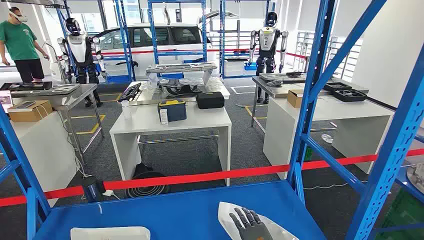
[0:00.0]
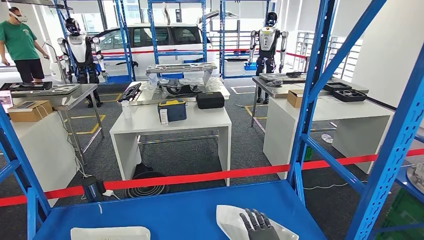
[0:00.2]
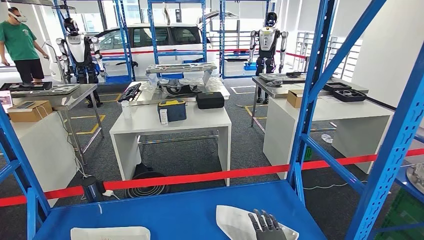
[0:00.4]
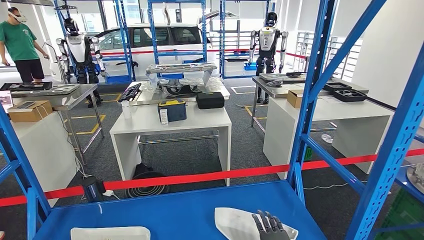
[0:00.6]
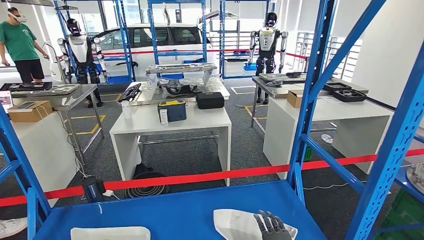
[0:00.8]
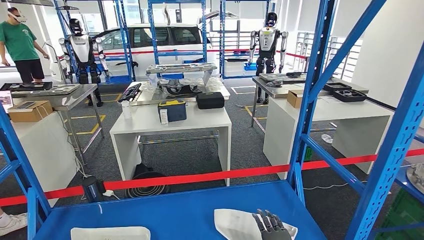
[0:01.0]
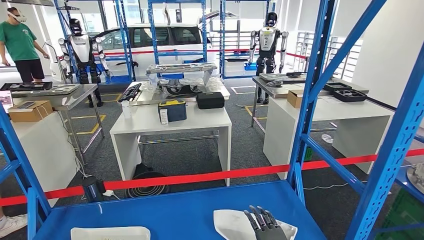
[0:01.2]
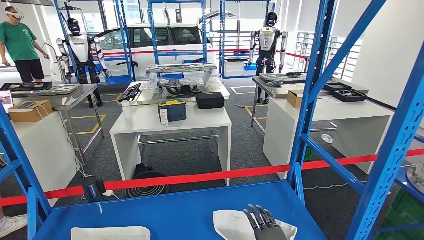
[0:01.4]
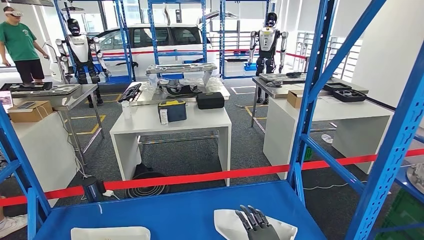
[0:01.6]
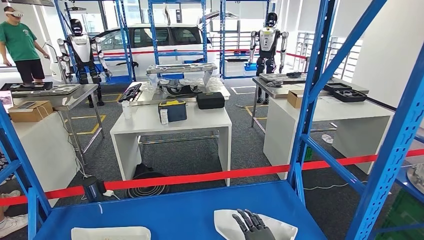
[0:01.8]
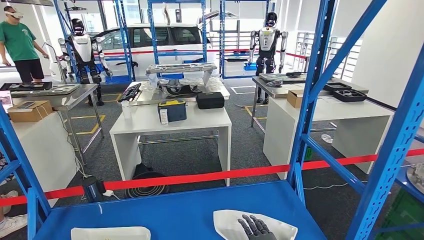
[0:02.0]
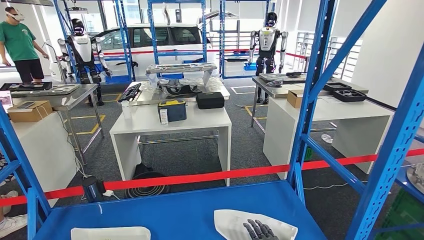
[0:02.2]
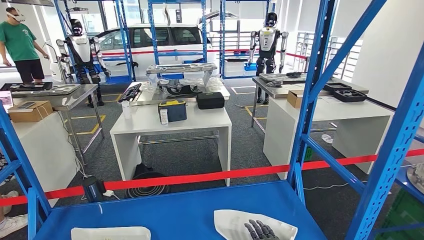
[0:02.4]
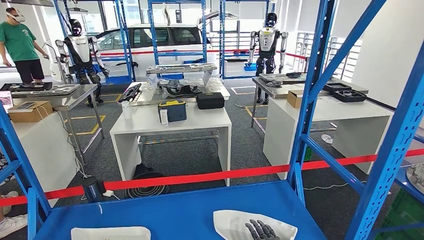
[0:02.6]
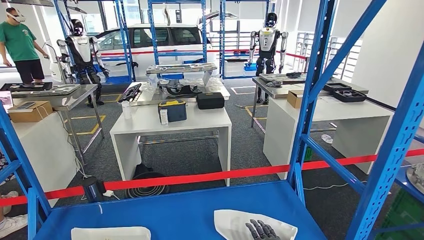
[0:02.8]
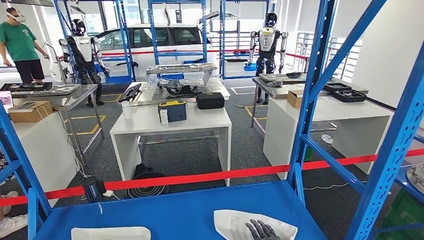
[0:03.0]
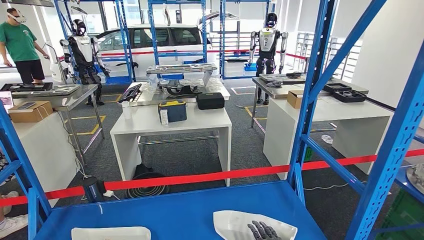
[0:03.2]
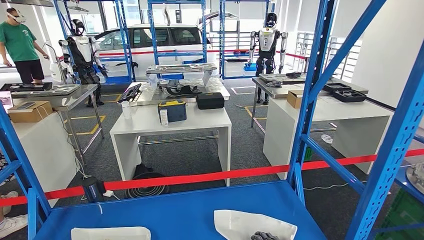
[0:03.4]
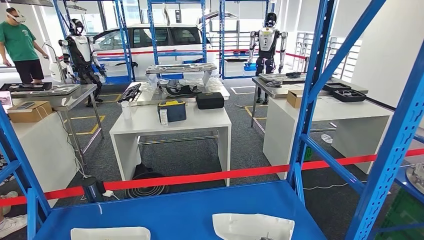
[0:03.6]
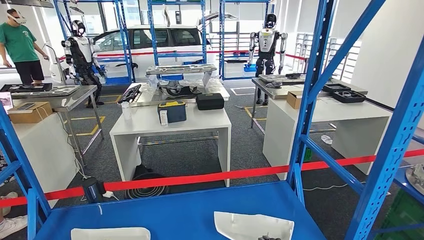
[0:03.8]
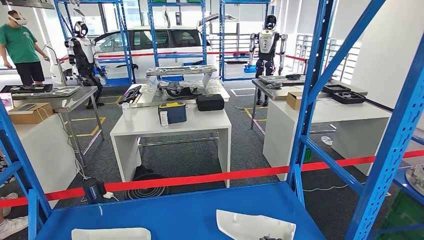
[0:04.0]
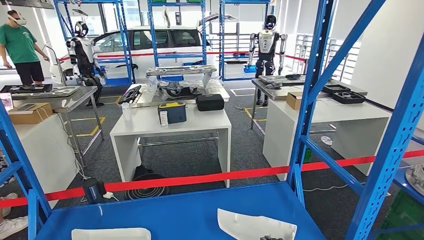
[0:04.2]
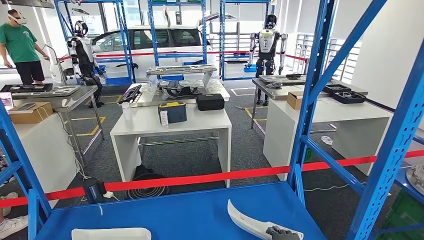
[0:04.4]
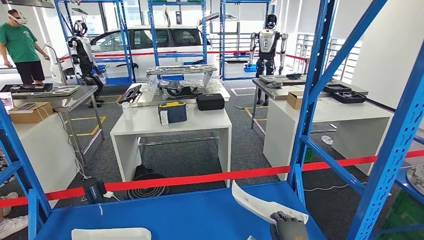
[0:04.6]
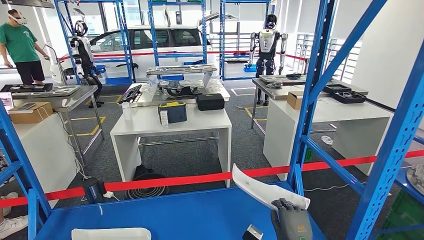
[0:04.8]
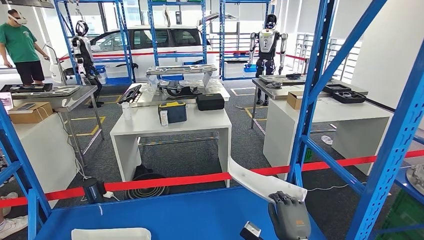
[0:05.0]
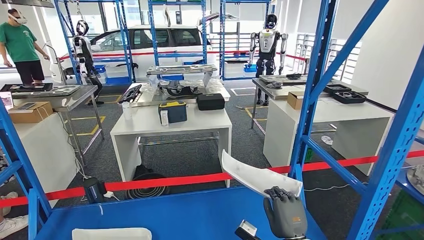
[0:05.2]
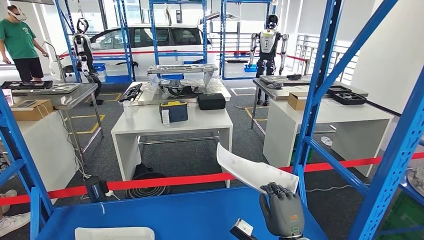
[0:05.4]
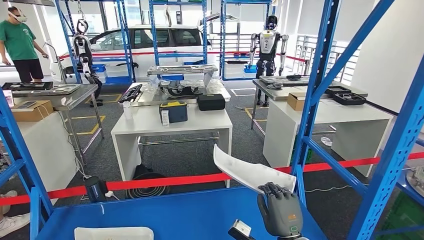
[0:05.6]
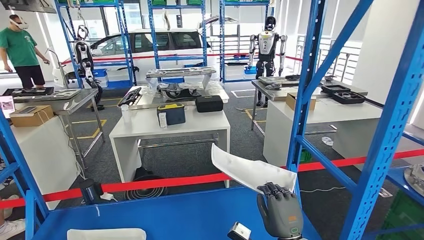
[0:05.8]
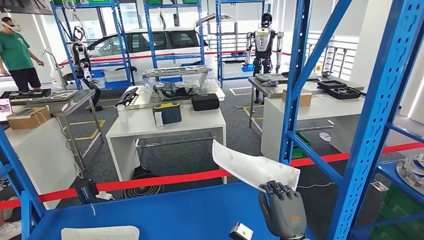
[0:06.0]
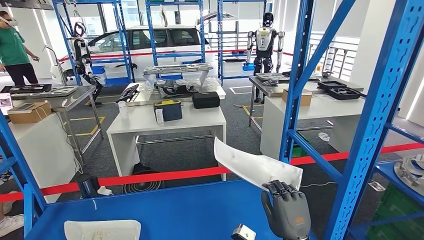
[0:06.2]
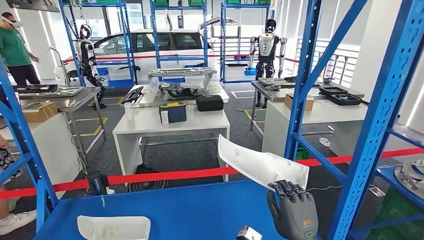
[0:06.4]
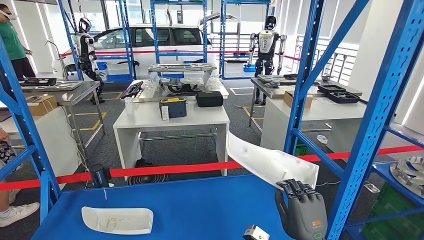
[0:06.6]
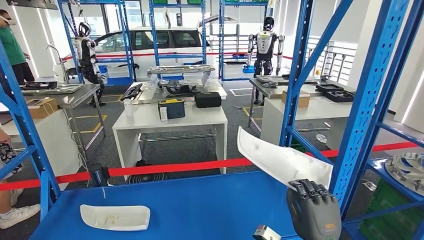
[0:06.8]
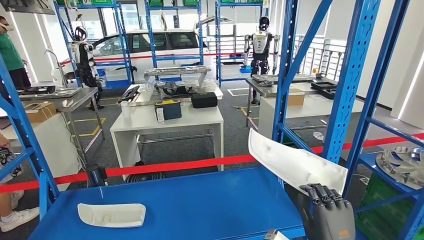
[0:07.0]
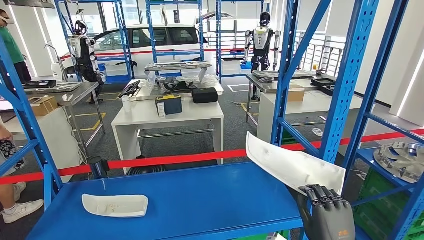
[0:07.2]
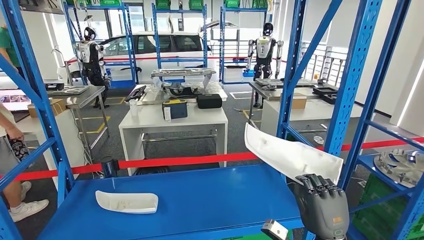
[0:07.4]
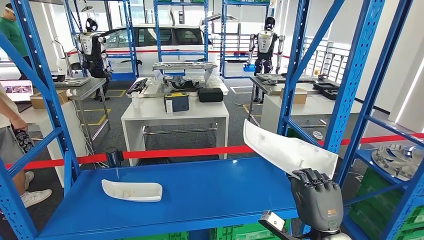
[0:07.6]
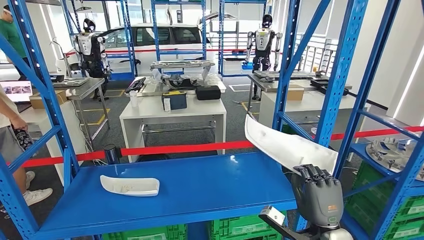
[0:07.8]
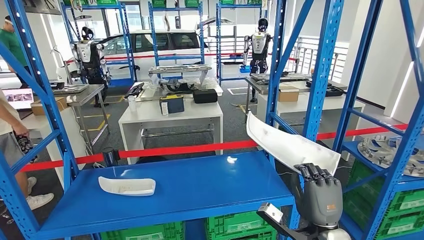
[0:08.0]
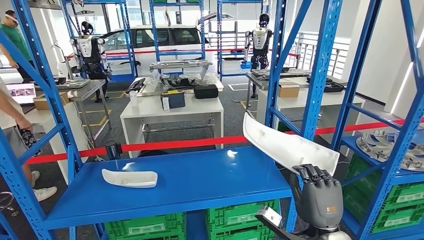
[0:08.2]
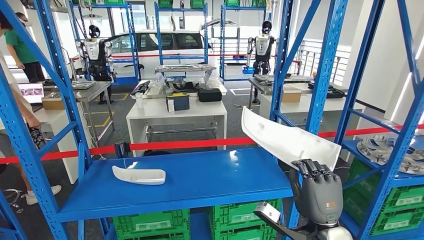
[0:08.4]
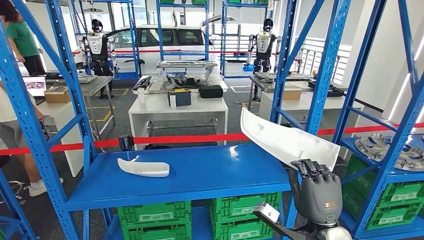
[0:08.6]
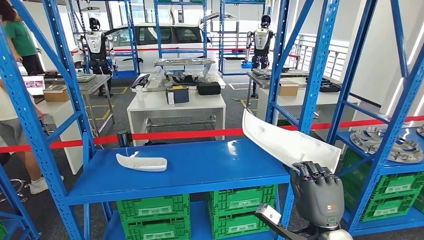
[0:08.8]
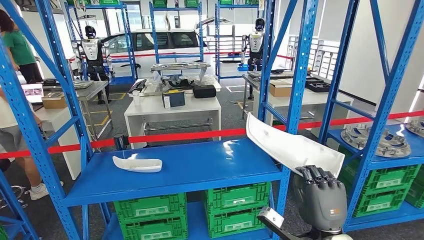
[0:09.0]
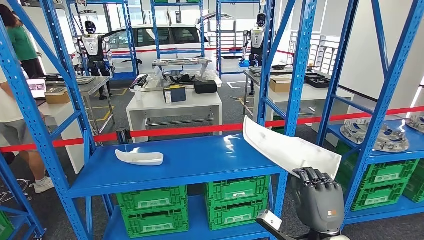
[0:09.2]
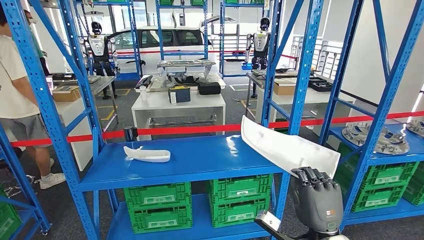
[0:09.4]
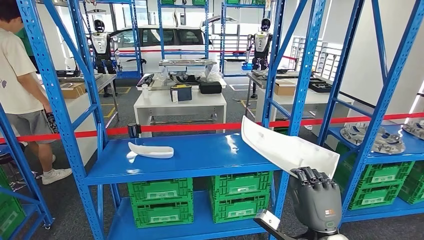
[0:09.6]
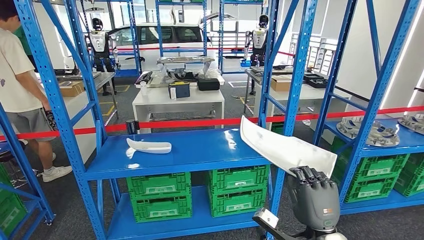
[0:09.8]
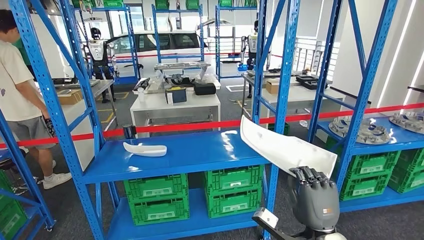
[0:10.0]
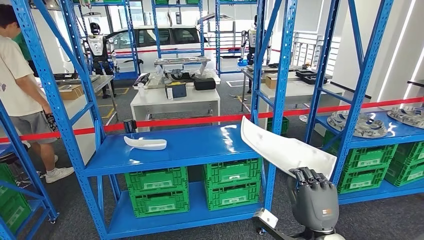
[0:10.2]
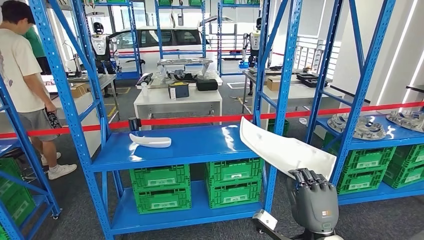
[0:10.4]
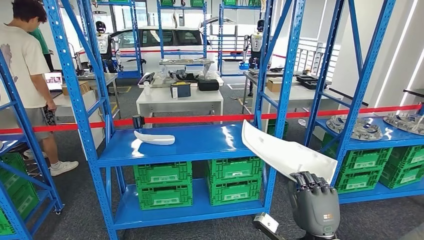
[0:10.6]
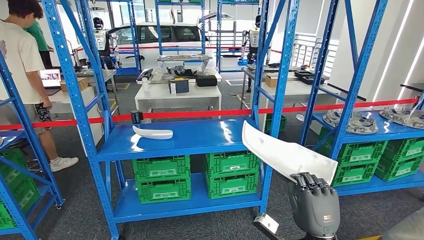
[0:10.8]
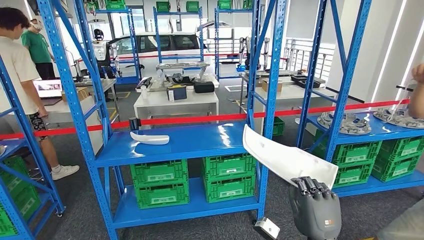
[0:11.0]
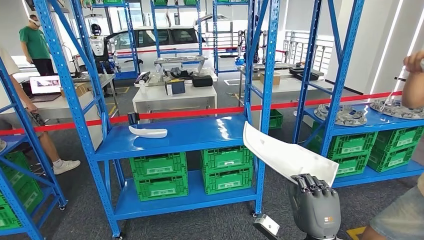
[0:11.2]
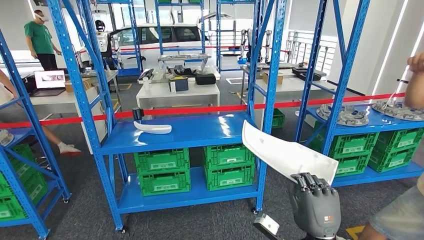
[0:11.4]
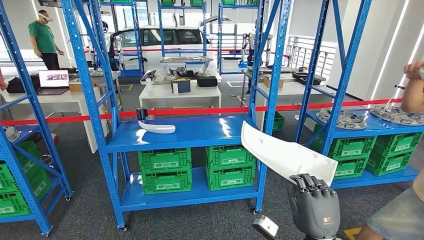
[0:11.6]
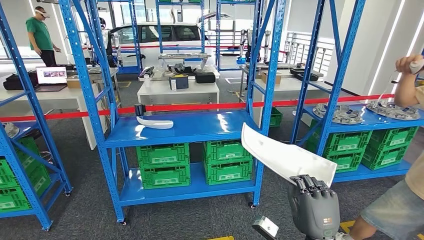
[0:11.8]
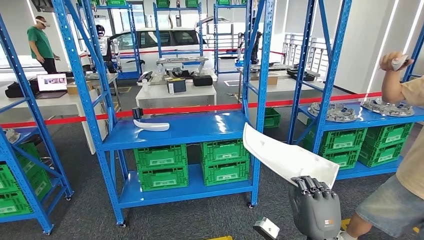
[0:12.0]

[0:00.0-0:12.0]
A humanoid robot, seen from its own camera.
Step, 0.0 to 7.2 s: Pick up the small parts from the shelf.
1.6 to 3.0 s: The hands move only a little.
3.0 to 4.4 s: The hands move only a little.

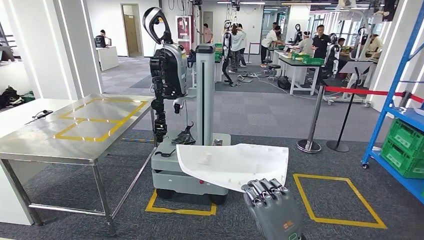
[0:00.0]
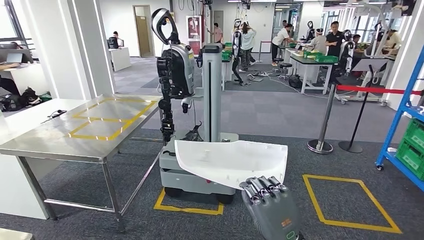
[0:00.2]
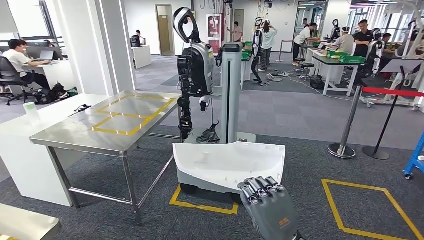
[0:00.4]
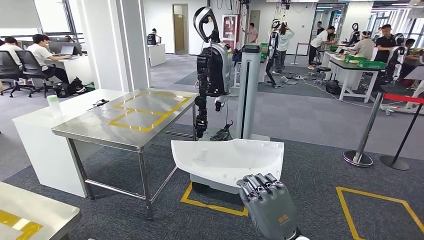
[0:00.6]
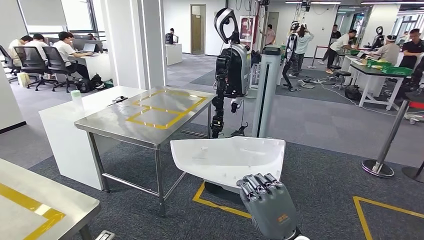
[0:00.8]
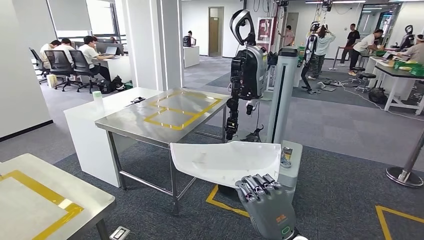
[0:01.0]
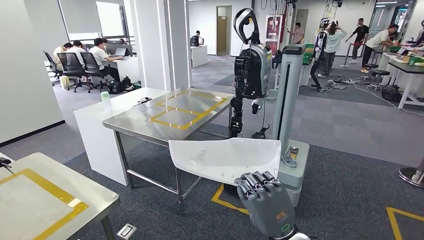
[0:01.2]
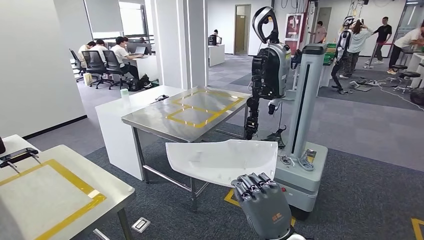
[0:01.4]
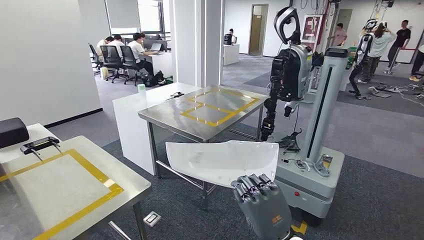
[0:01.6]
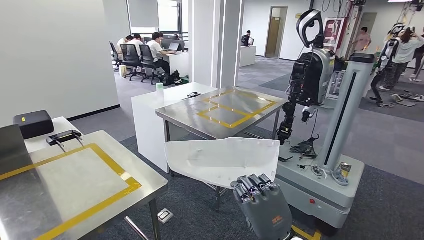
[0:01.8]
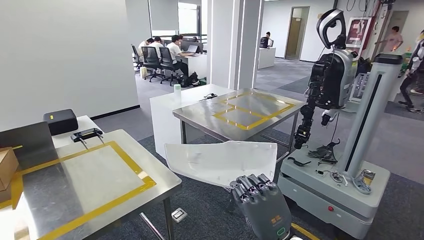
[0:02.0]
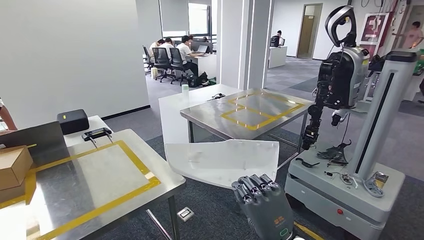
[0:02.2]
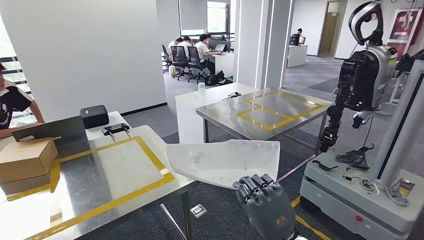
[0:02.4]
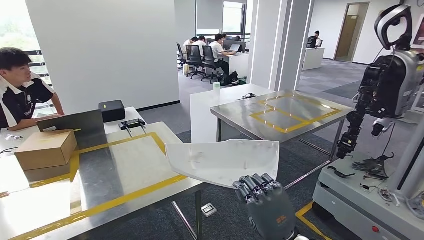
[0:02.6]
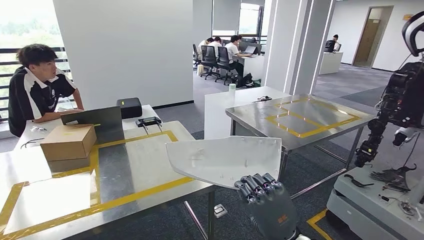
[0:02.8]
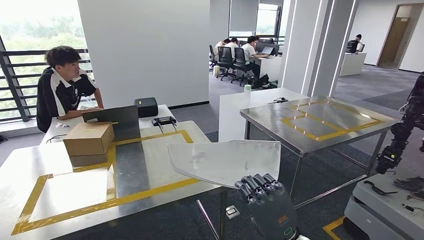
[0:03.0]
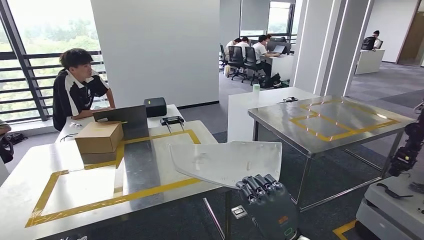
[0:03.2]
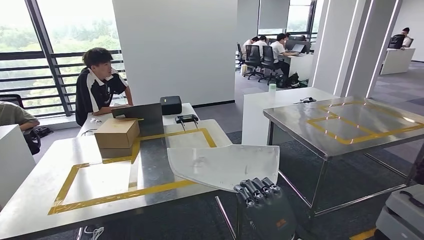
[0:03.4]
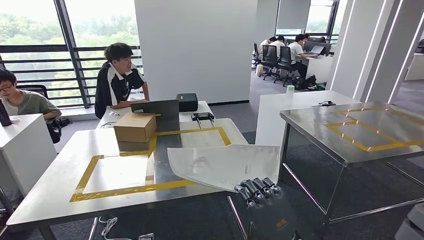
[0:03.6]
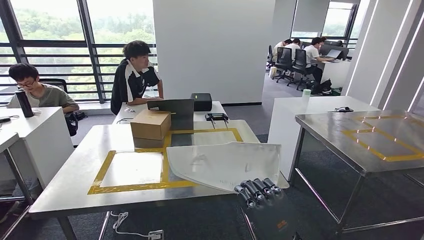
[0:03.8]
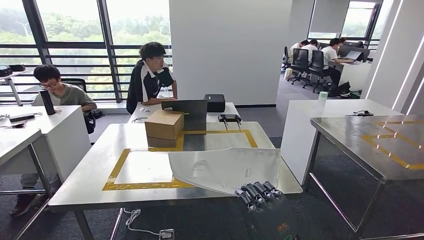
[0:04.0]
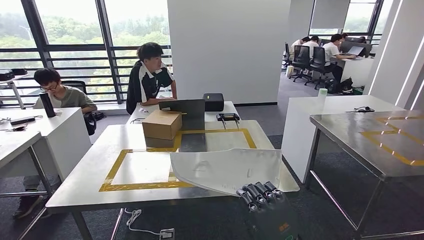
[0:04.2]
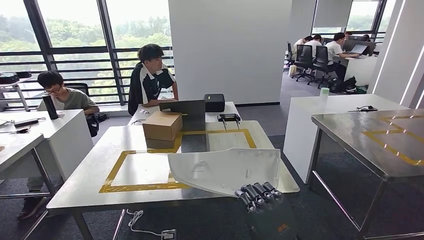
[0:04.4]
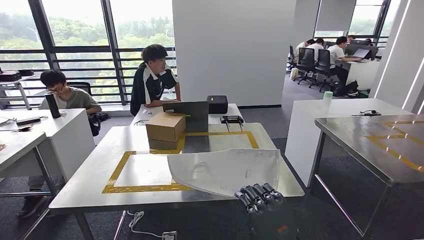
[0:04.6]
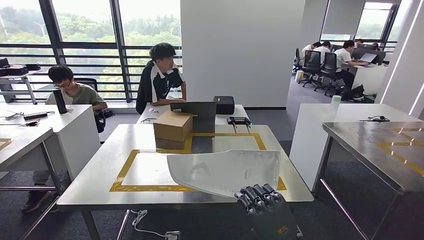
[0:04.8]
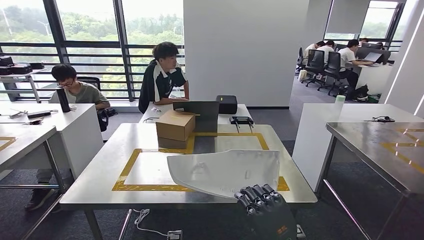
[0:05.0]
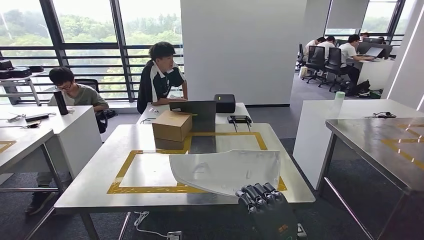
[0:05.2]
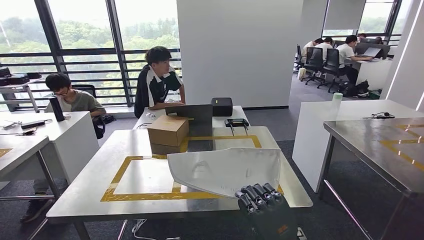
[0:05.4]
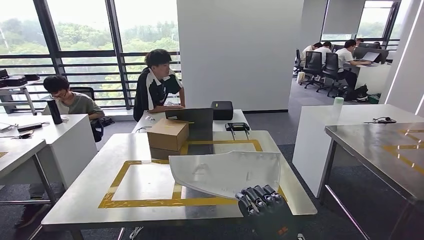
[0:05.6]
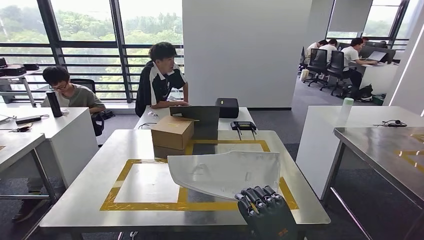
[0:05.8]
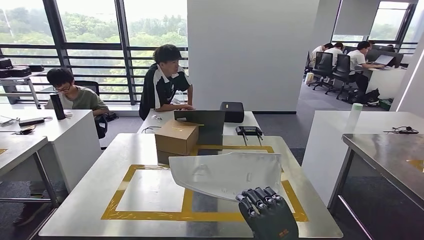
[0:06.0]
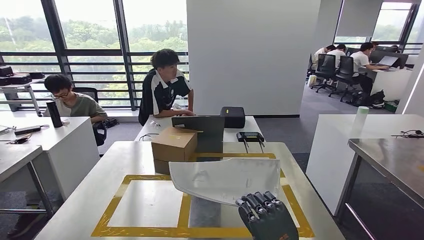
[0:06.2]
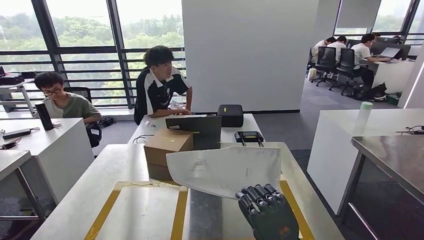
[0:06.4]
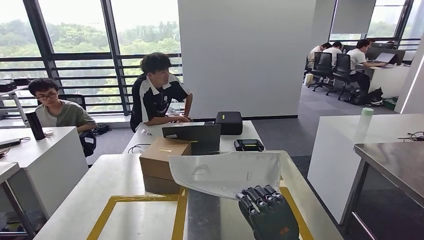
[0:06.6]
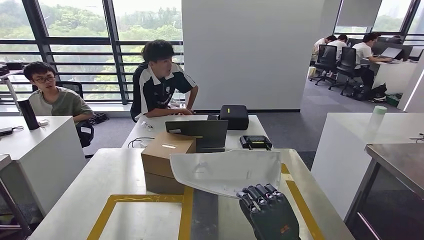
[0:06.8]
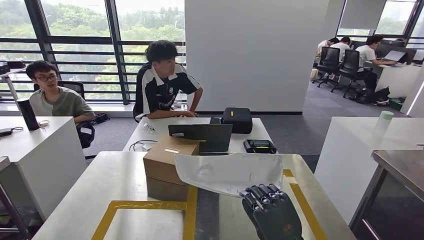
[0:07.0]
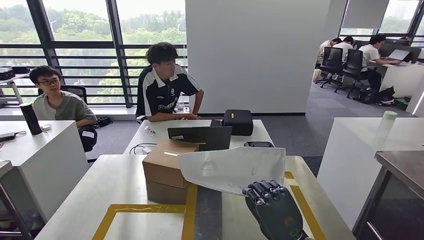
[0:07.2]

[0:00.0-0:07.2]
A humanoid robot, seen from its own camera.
Step, 0.0 to 5.0 s: Move the small parts to the workbench.
